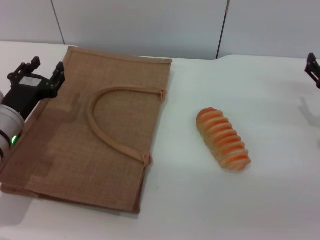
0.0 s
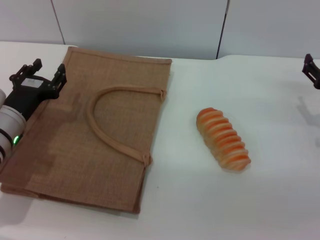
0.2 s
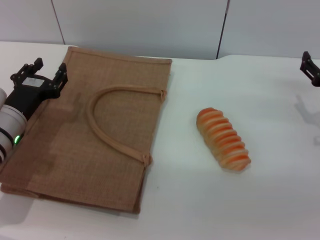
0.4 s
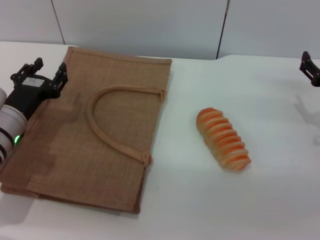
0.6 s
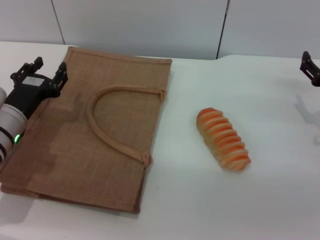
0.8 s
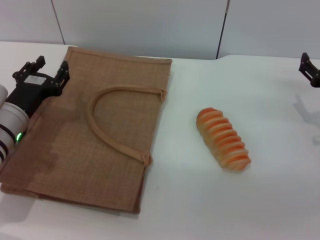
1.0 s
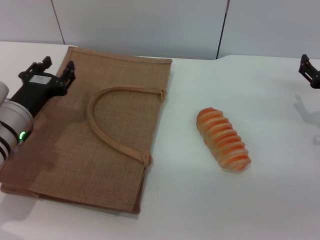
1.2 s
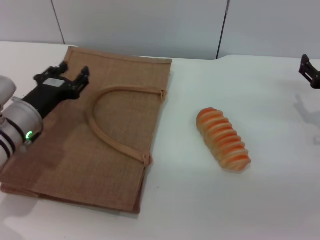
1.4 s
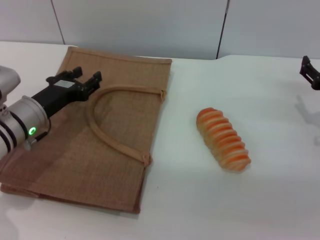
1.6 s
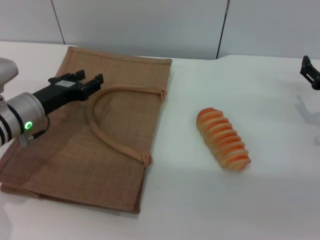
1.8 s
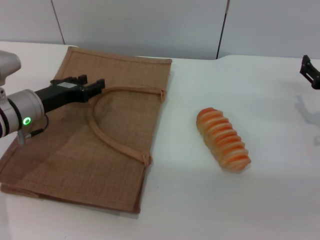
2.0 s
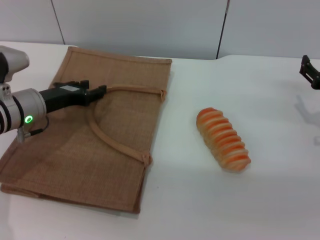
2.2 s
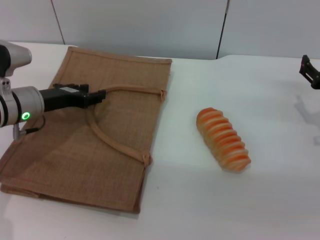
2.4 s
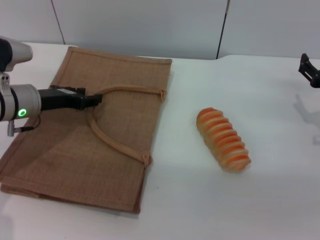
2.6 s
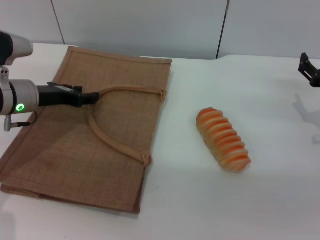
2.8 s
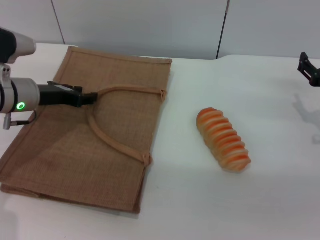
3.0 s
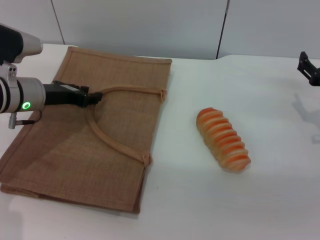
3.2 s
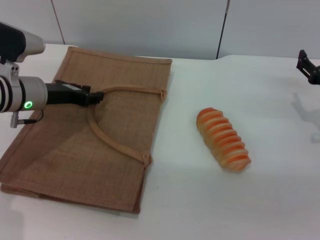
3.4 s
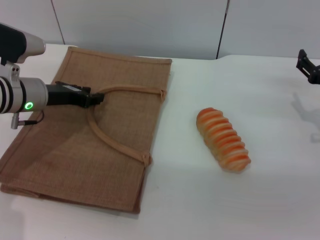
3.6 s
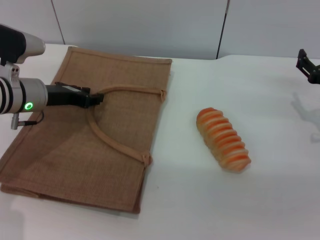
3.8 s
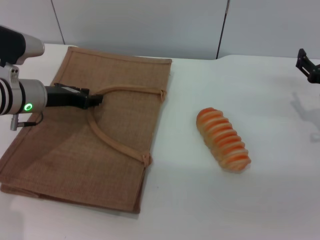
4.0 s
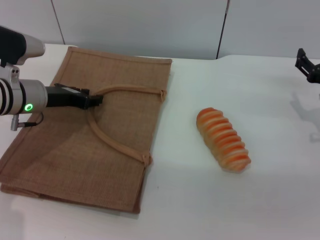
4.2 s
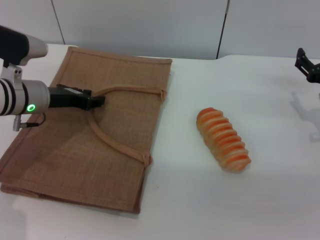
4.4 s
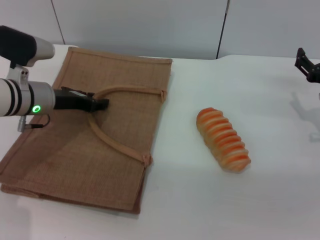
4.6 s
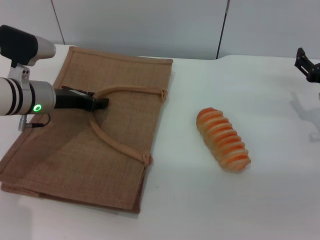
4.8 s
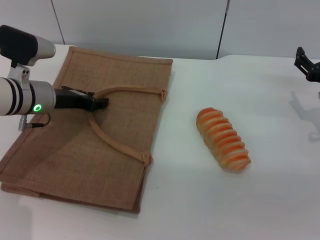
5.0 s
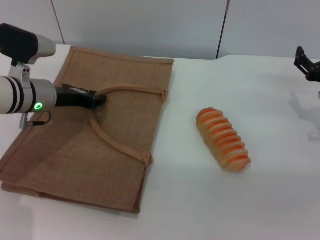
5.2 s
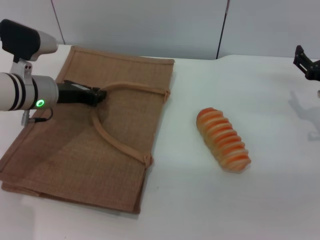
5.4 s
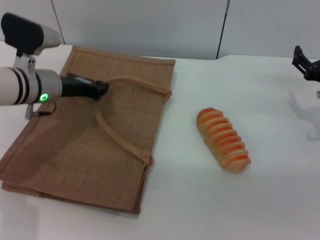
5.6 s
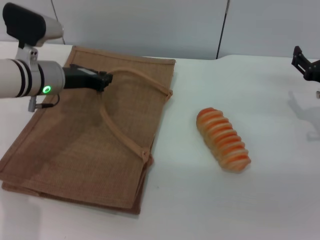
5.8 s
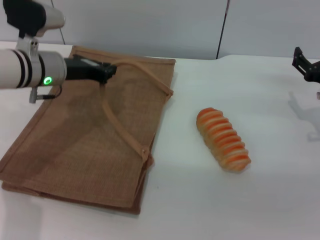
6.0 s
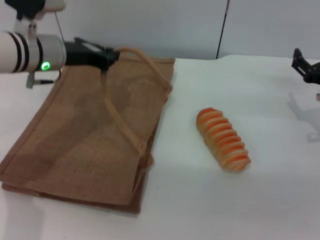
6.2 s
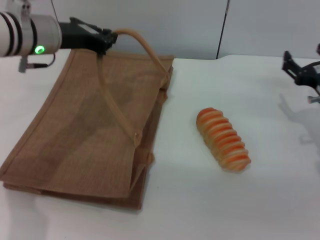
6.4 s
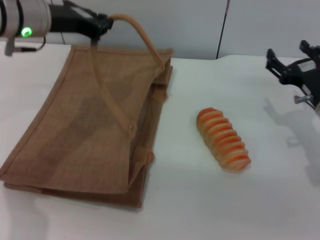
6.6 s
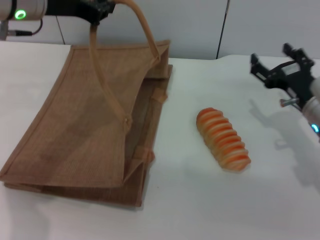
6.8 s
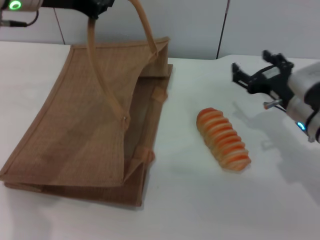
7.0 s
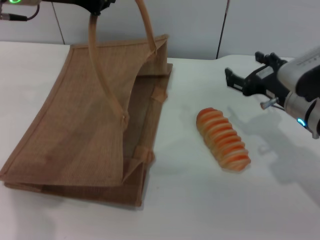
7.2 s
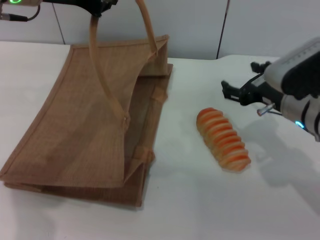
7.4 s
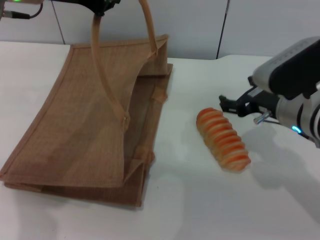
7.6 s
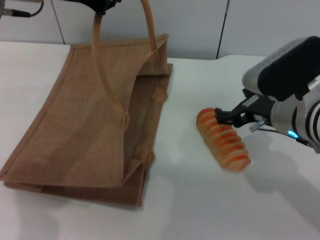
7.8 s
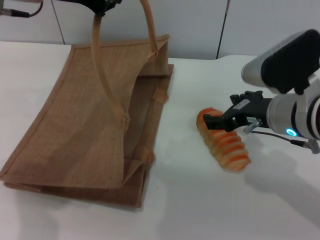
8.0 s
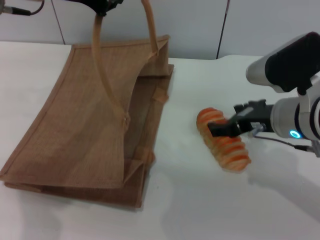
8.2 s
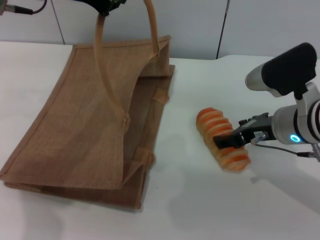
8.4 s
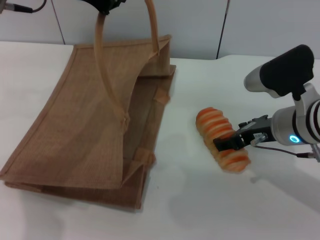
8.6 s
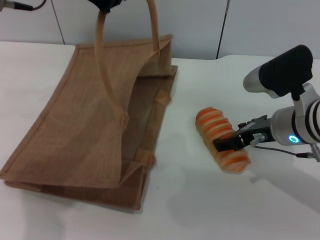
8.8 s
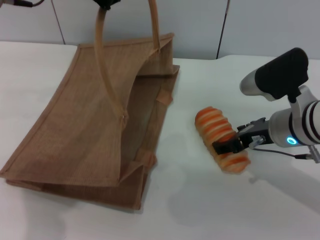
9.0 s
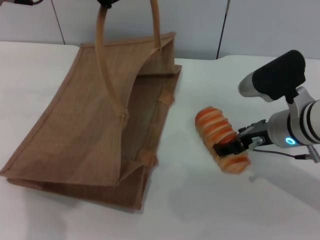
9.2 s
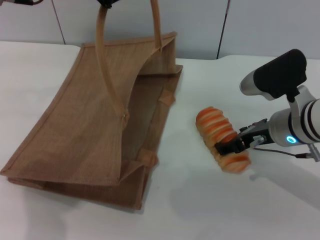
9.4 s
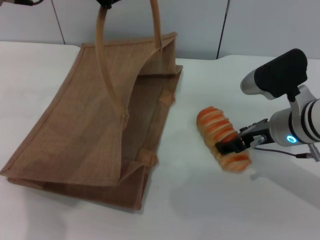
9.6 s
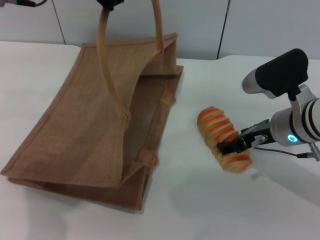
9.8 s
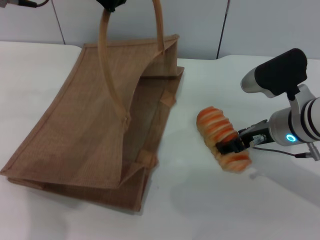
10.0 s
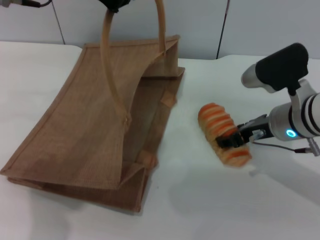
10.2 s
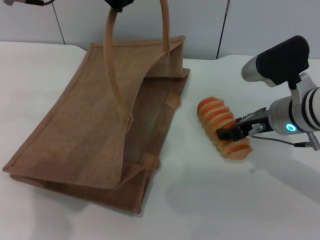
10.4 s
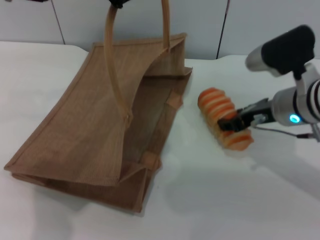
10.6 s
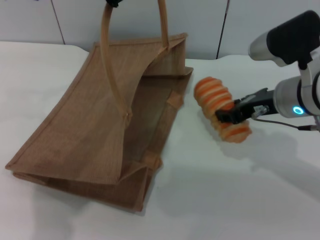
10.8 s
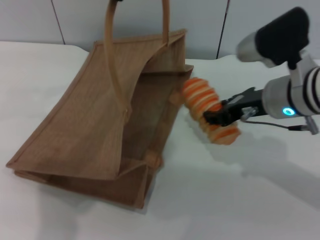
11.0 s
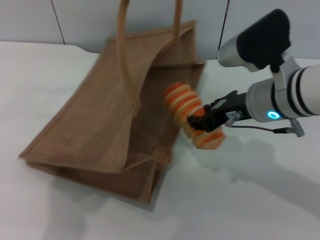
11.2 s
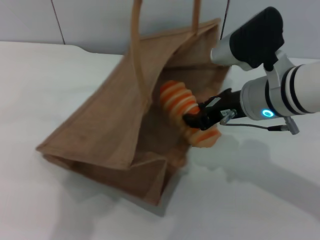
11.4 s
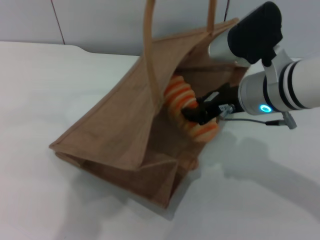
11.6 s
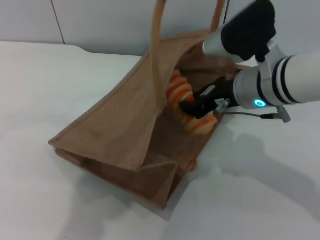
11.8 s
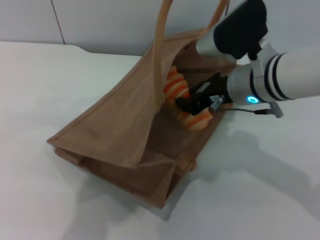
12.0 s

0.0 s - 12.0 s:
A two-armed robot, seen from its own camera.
Task of the whole recording: pick up the bread from the table and place it in the brown handbag.
Step, 0.0 s - 6.6 s: Lift the woven bag with the left gripper to open it.
Step, 6.8 s - 10.8 s: Pick up the bread with the right gripper.
1.6 s - 3.0 s: The left gripper ends up approximately 5 cm from where it was.
3.0 s - 4.4 s: There are only small adjustments of the grippers.
4.4 s - 6.0 s: The left gripper shifts by some 5 cm, and closes its fingers.
6.0 s - 7.6 s: The left gripper moves upward, approximately 15 cm; the right gripper moves to the left and upward, about 15 cm.
9.0 s - 10.4 s: The grippers move only a little.
10.4 s - 12.0 s: The right gripper travels to the left by approximately 5 cm, and closes up; the left gripper goes some 10 cm to the right.

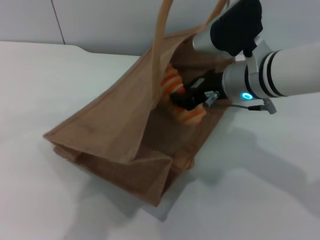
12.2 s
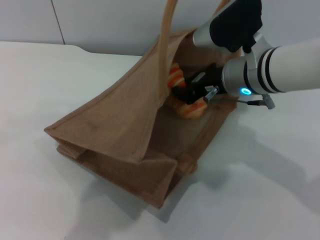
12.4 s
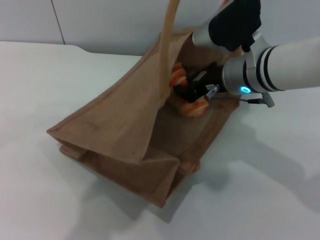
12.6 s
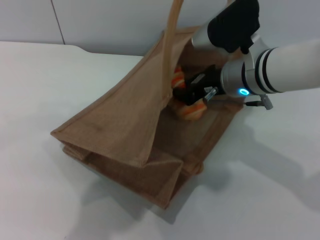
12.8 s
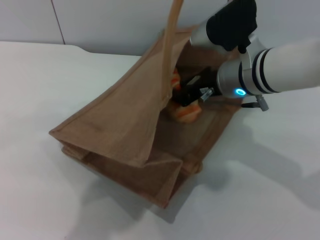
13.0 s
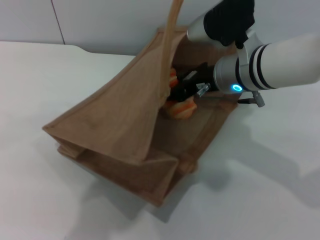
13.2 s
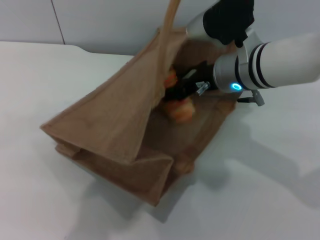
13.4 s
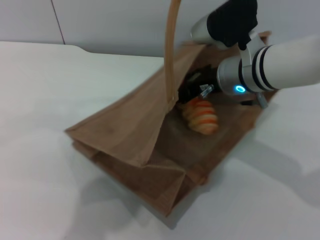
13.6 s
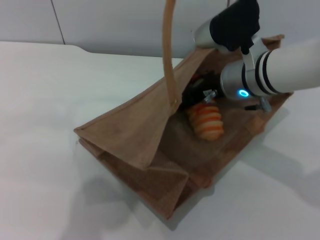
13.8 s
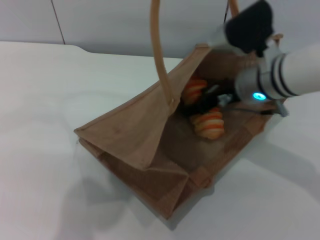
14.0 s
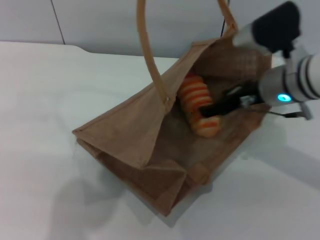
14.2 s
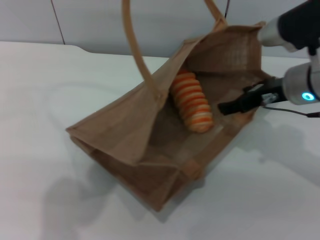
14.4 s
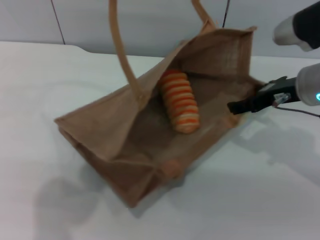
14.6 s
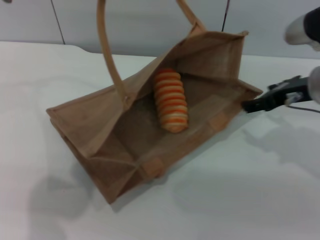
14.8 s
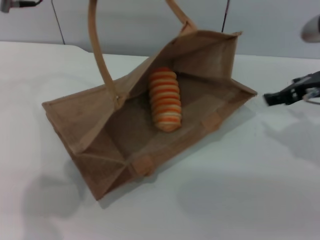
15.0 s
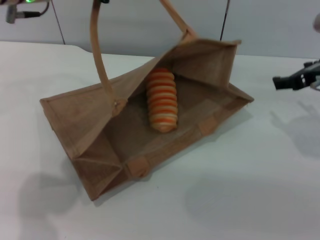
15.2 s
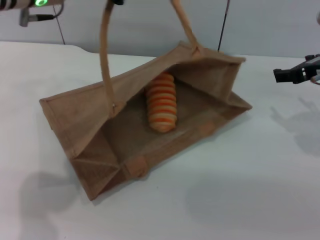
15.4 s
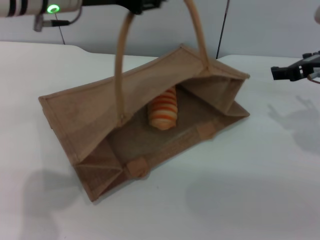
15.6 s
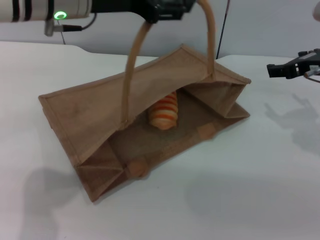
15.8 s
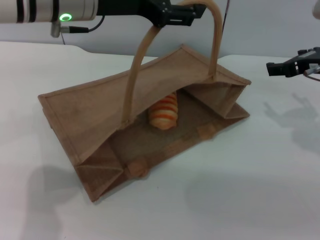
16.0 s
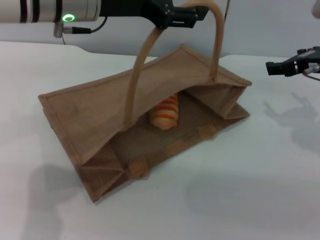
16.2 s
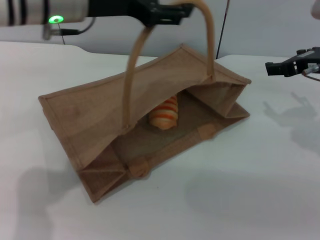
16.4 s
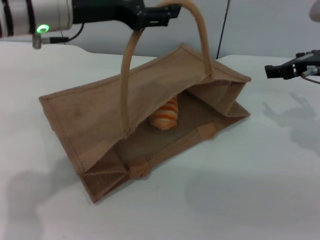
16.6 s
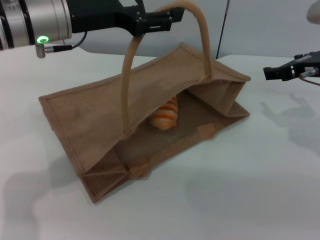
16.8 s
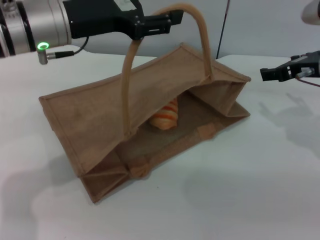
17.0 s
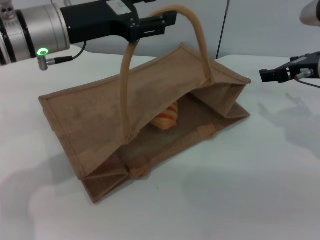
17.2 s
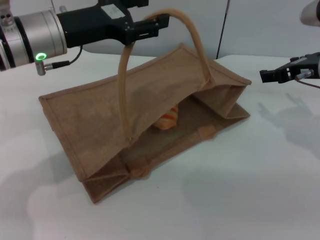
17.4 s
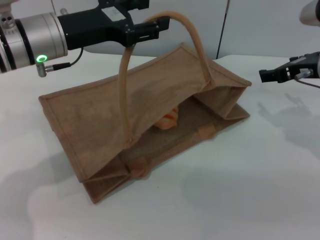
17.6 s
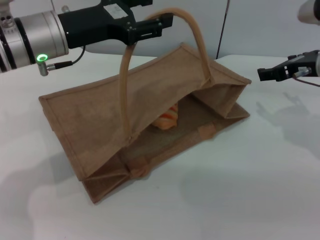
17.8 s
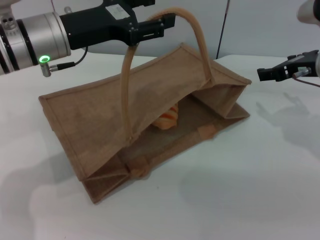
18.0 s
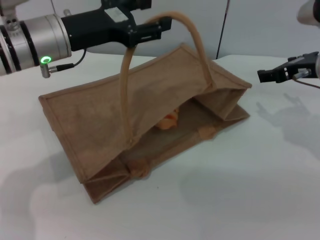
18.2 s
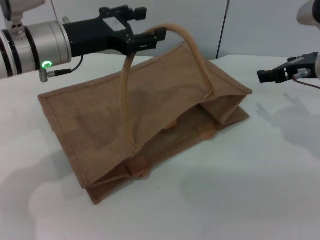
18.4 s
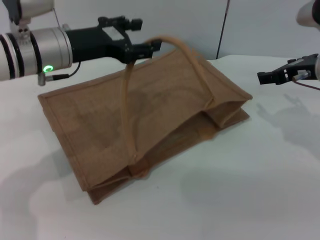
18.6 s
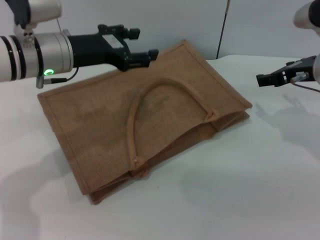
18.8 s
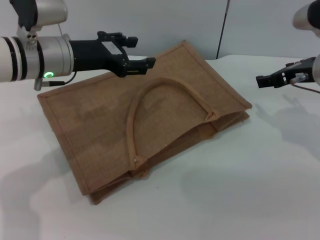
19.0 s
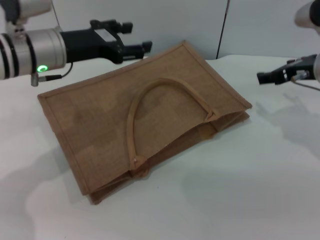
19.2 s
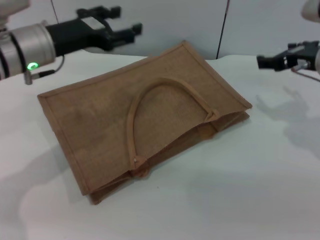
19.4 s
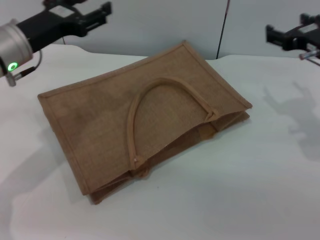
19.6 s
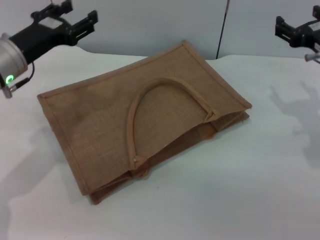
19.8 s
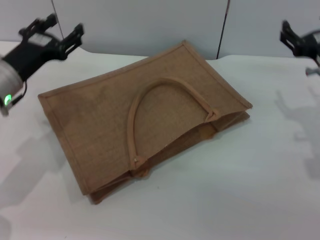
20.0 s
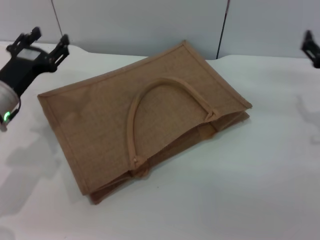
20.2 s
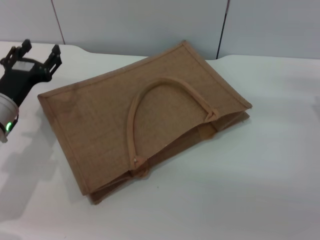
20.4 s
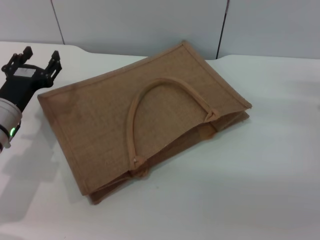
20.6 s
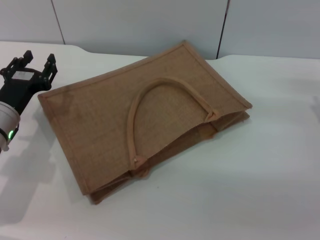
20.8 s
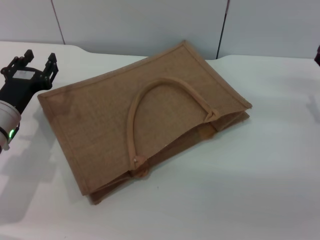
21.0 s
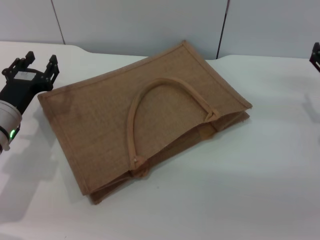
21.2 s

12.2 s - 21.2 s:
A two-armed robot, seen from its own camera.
Task of the whole recording: pick up the bread from the table and place it in the brown handbag.
Step, 12.2 s - 14.2 s: Place the bread into the woven bag with the right gripper.
Step, 14.4 s - 19.0 s: Lower the woven bag with the left gripper to close it.
12.2 s - 13.8 s: The right gripper opens up.
13.8 s - 15.2 s: The left gripper travels to the left and downward by approximately 10 cm, while the right gripper heads to the right, covering roughly 15 cm.
15.2 s - 16.6 s: The left gripper opens its fingers.
16.6 s - 18.2 s: The left gripper shifts roughly 5 cm downward.
18.2 s - 19.8 s: The left gripper moves to the left, some 5 cm.
19.8 s - 21.2 s: The right gripper travels downward and to the right by some 10 cm; the left gripper goes roughly 10 cm downward.

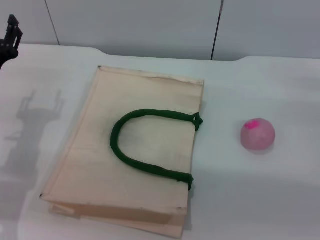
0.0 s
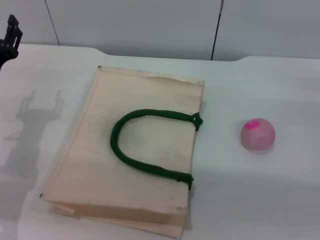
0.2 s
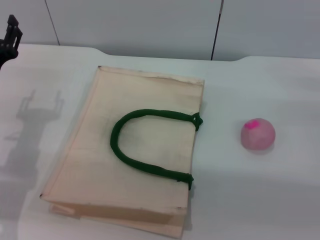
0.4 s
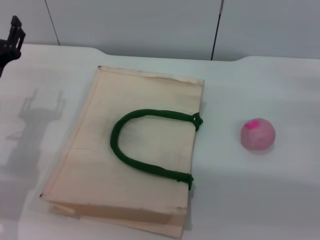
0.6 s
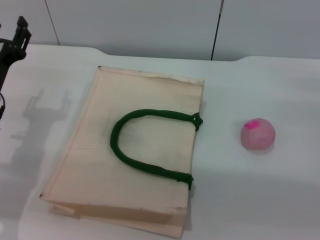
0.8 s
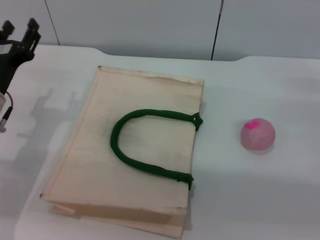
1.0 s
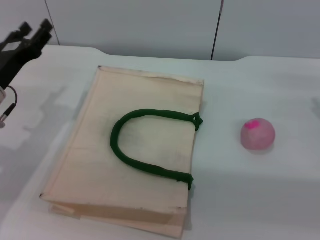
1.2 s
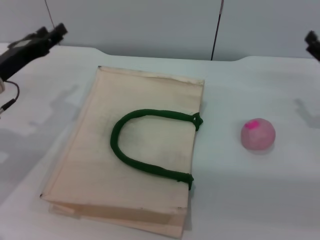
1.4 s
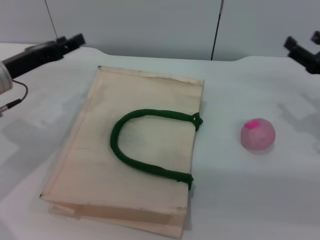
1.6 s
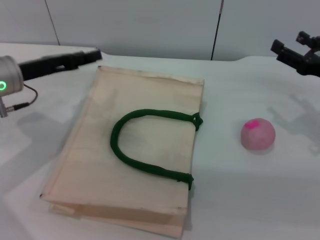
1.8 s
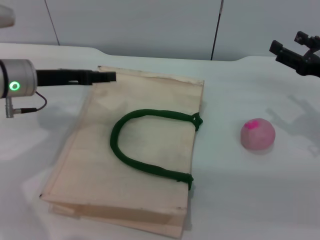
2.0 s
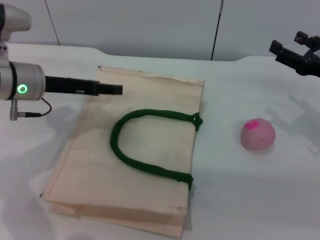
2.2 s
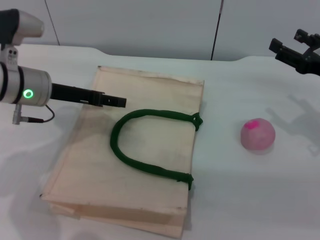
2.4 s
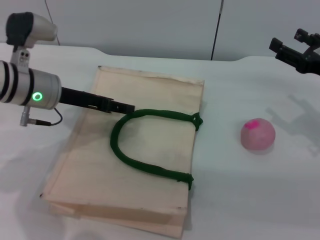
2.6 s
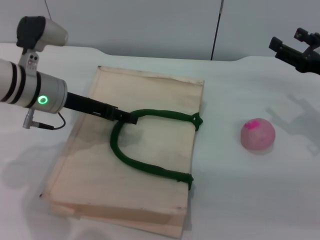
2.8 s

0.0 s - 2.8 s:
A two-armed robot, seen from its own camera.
Task of the whole recording: pick up the peach from the table and place it in the white handbag.
1.4 s - 2.8 s: The left gripper moves to the right, about 10 cm.
